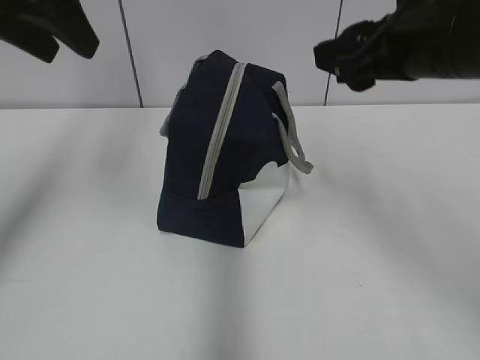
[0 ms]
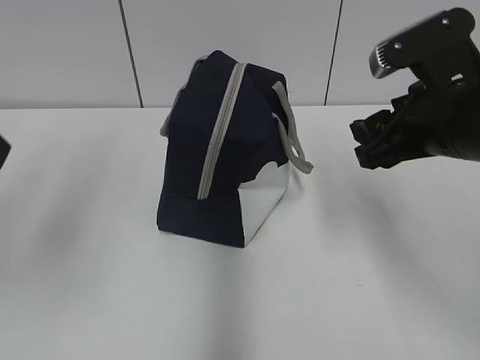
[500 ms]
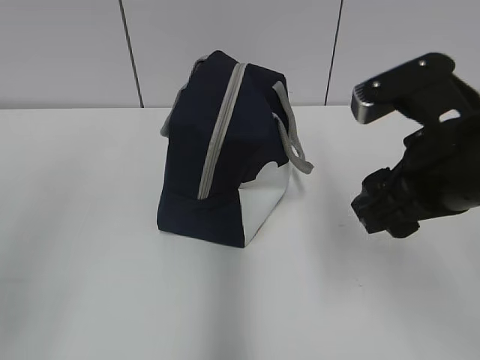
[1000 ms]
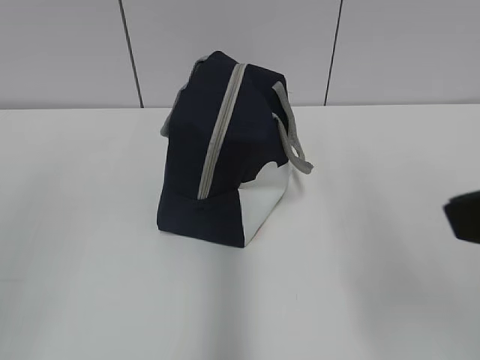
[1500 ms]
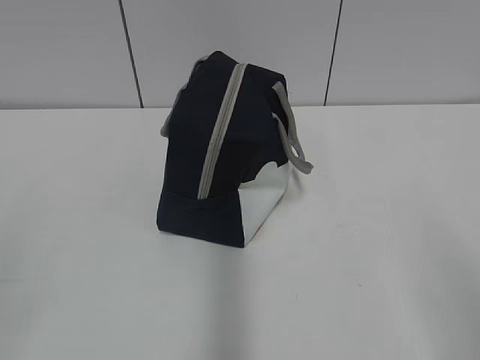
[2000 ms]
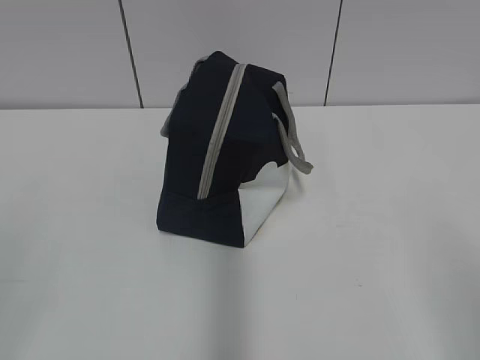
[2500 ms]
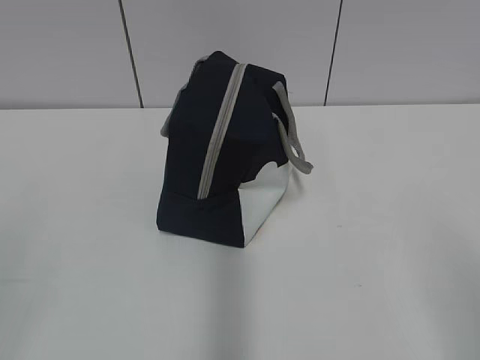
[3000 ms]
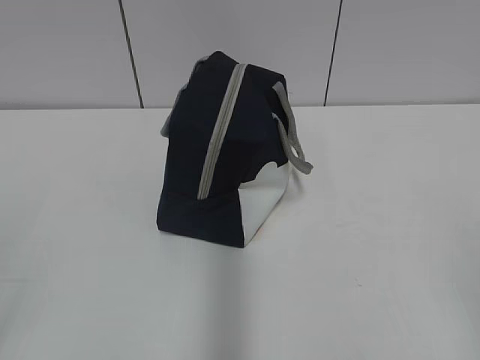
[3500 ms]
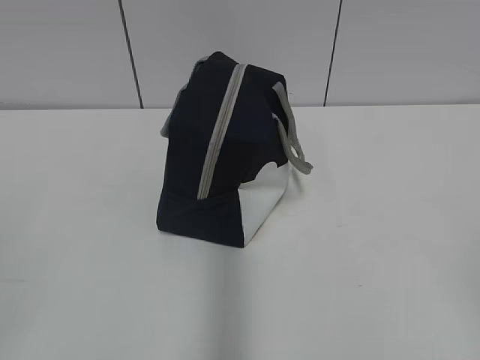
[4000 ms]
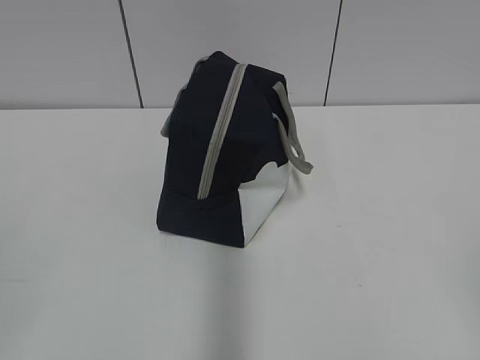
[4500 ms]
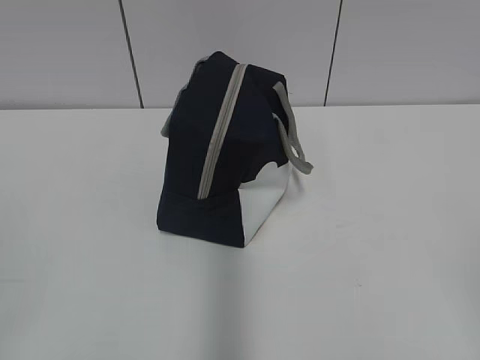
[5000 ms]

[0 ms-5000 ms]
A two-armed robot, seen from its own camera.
0 ms to 2500 ms: Both grippers travel together backward, approximately 30 cm.

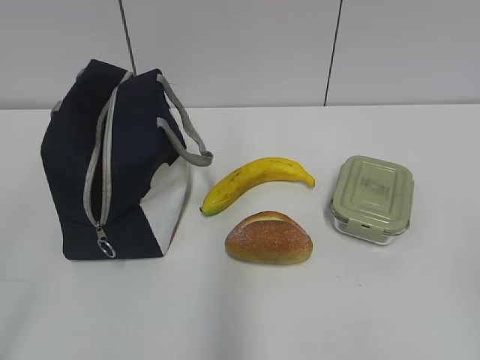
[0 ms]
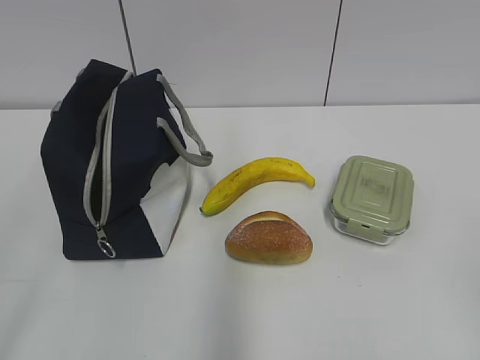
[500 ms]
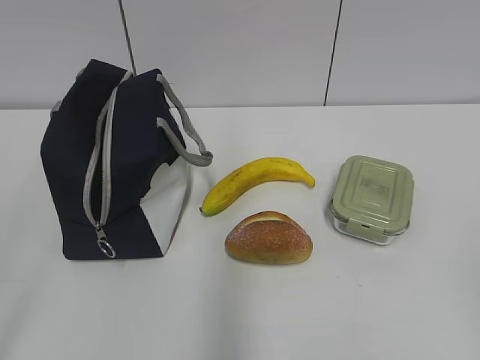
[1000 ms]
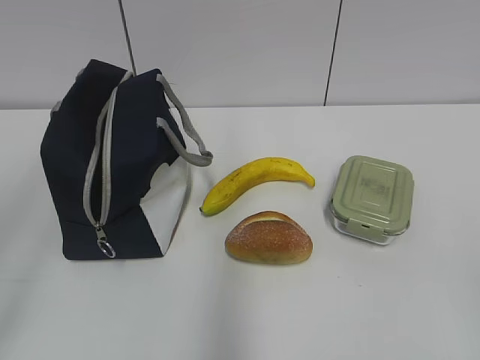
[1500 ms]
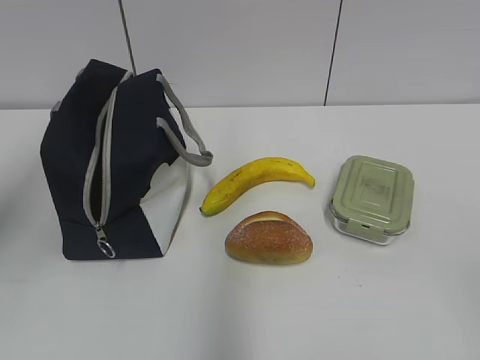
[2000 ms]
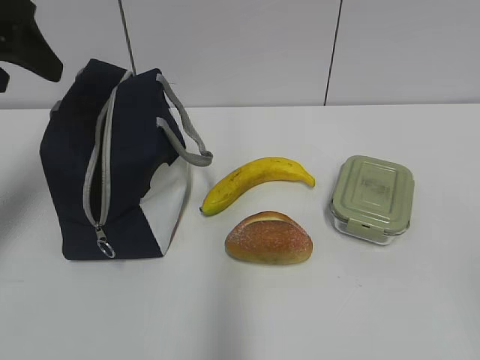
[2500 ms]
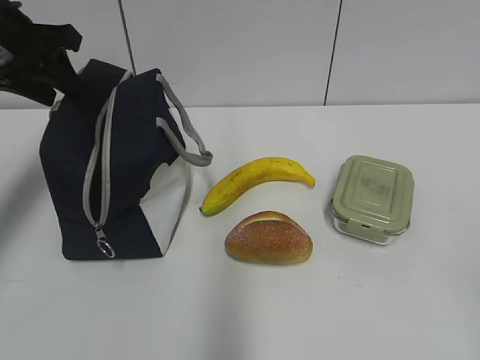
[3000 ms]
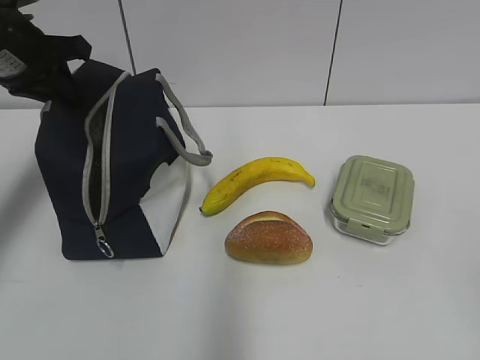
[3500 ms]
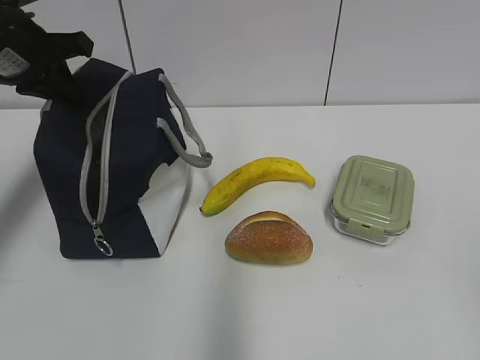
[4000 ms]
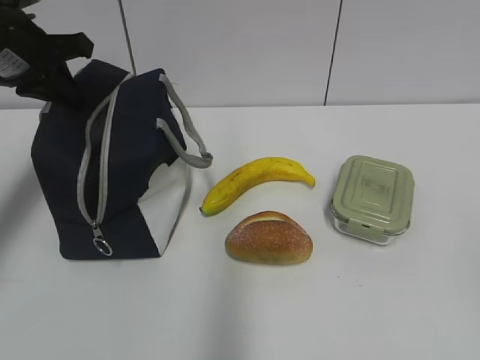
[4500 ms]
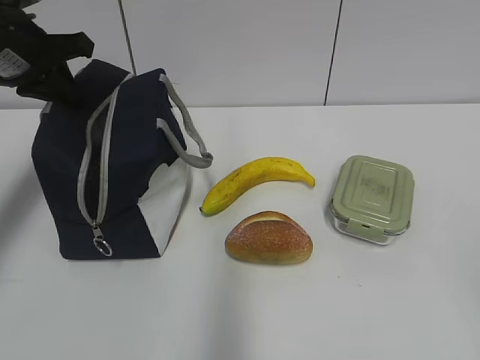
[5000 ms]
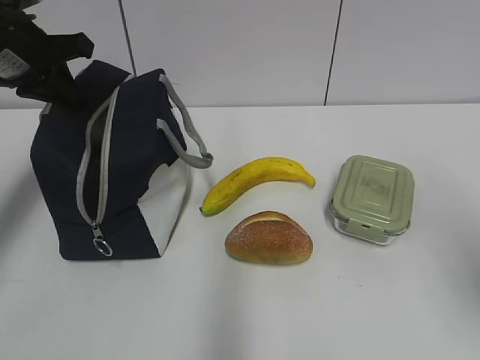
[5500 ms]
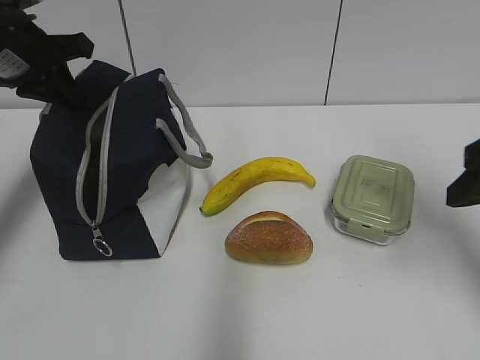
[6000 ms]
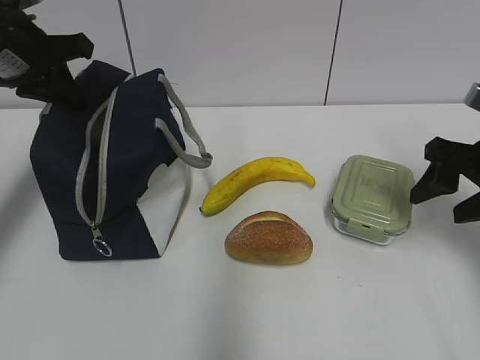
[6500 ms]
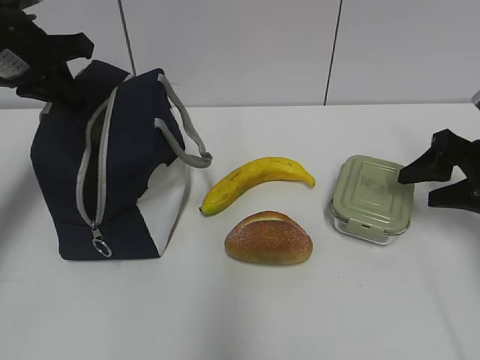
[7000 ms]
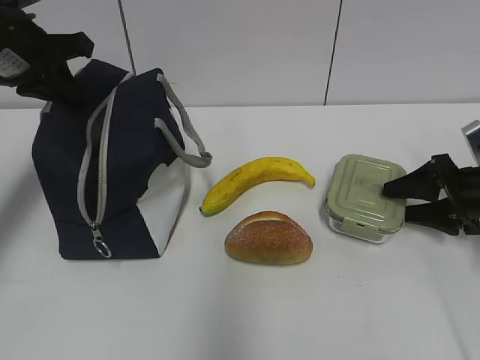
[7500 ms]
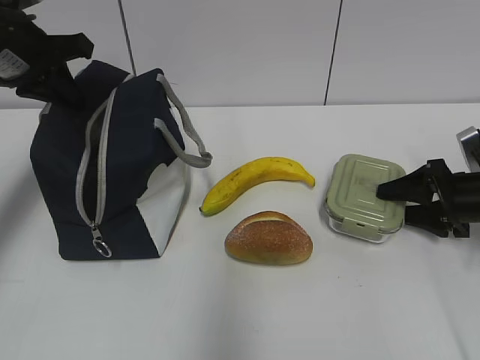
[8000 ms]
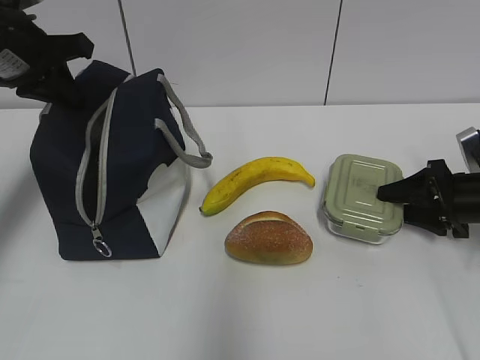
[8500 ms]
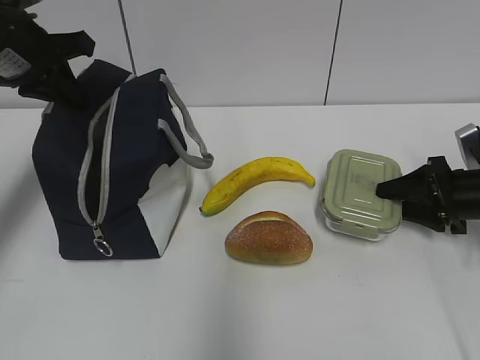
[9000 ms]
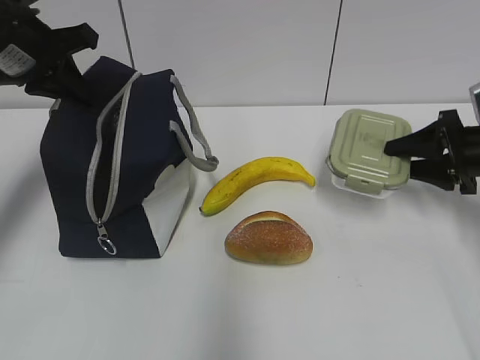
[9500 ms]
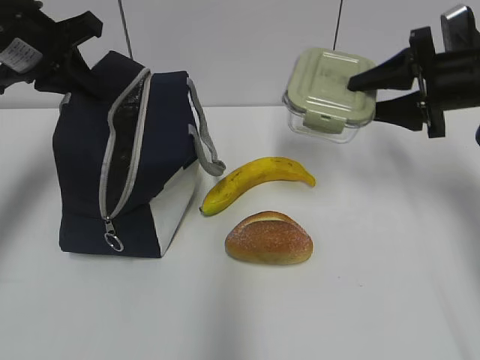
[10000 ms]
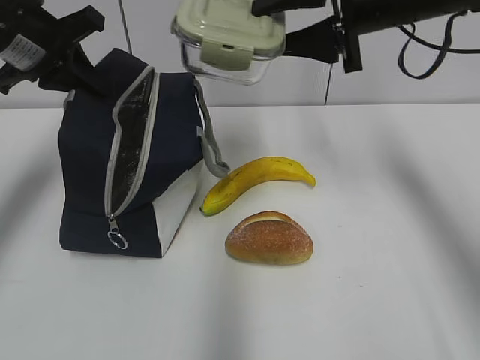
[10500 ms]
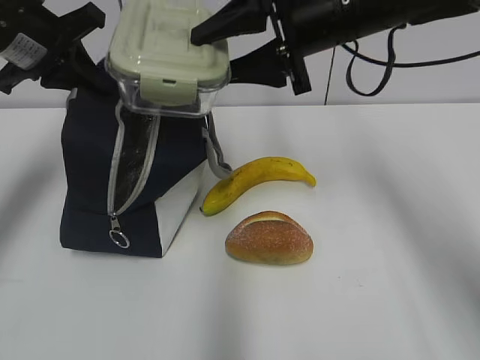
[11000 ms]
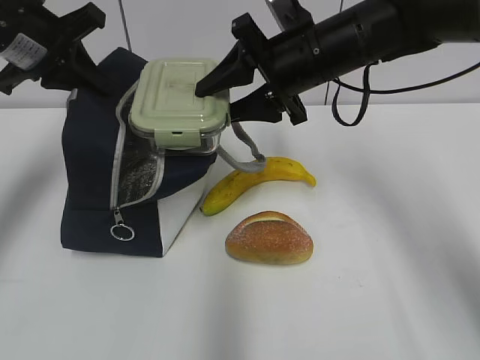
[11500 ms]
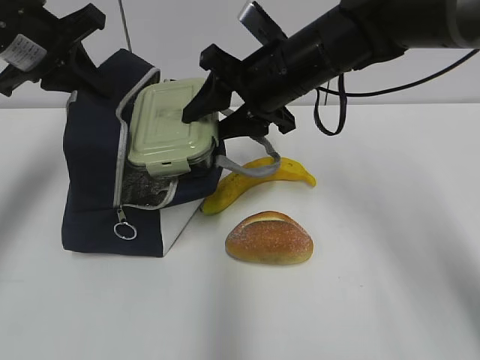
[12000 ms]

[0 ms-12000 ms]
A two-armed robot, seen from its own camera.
2000 ms to 4000 ms: The left gripper heads forward and downward, covering some 25 cm, and closes.
4000 ms to 6000 ms: The right gripper heads forward, covering some 25 cm.
6000 ms to 8000 ms: The right gripper is displaced downward and forward by roughly 20 cm.
8000 ms to 10000 ms: The right gripper travels upward by approximately 15 cm.
10000 ms to 12000 ms: The right gripper moves to the left, about 20 cm.

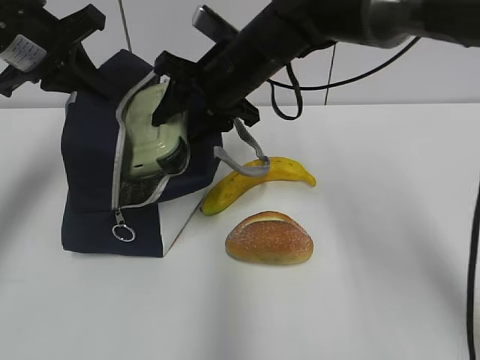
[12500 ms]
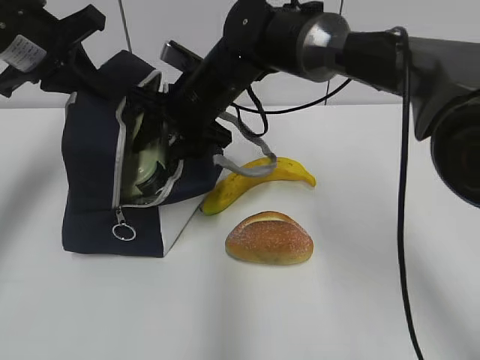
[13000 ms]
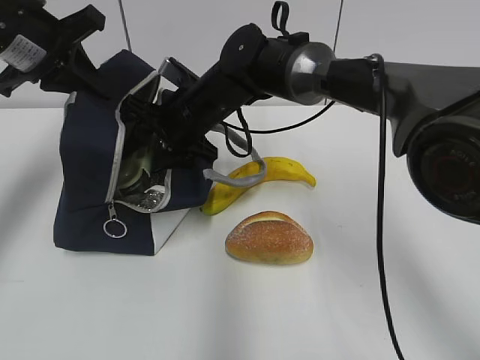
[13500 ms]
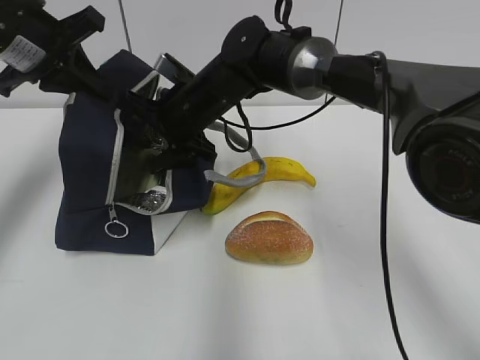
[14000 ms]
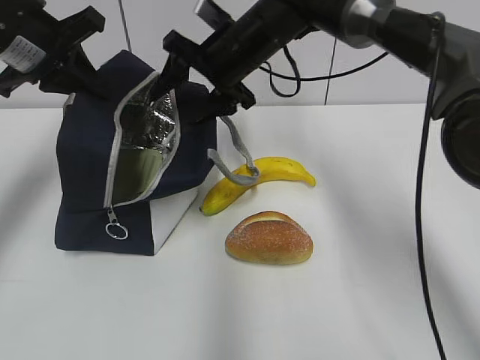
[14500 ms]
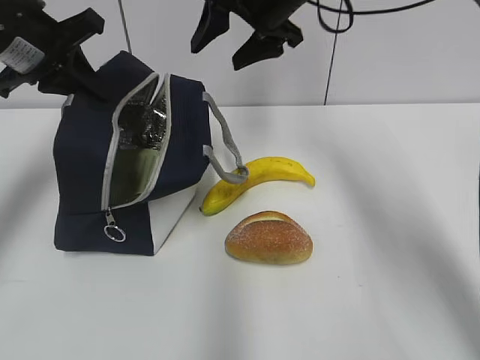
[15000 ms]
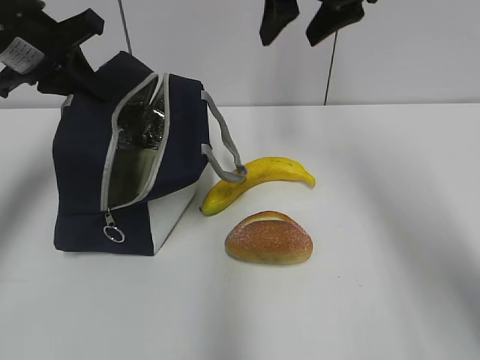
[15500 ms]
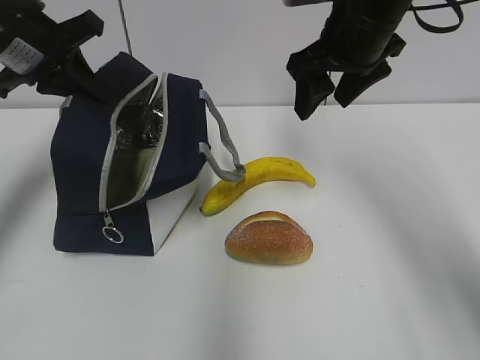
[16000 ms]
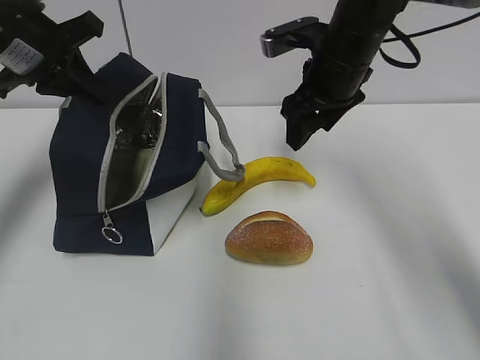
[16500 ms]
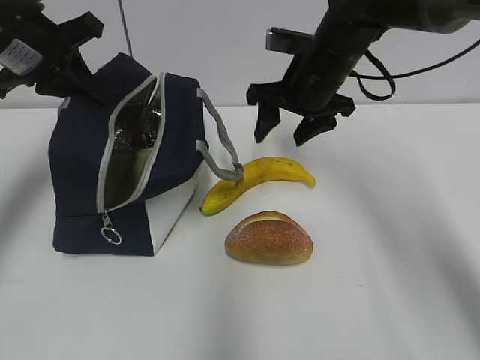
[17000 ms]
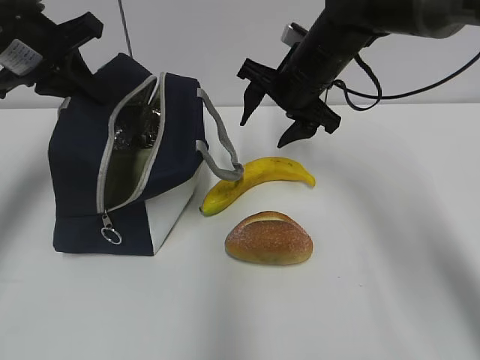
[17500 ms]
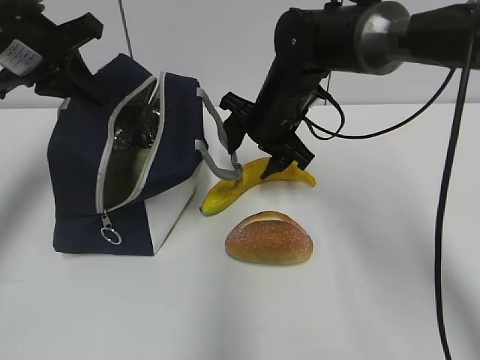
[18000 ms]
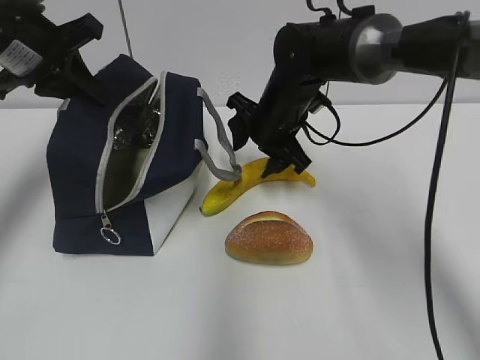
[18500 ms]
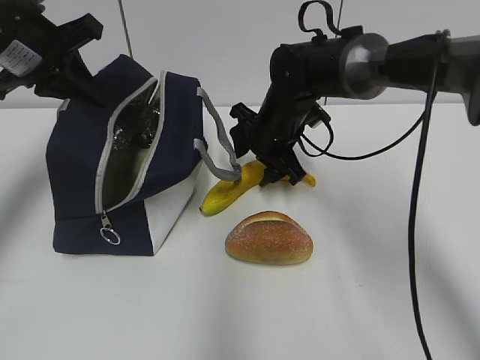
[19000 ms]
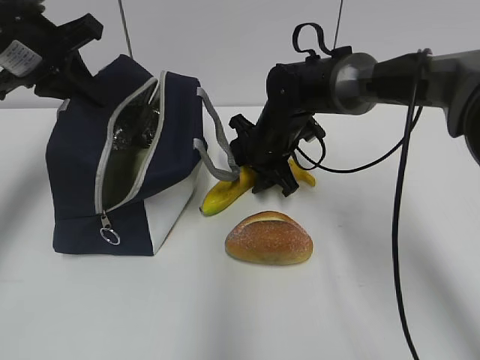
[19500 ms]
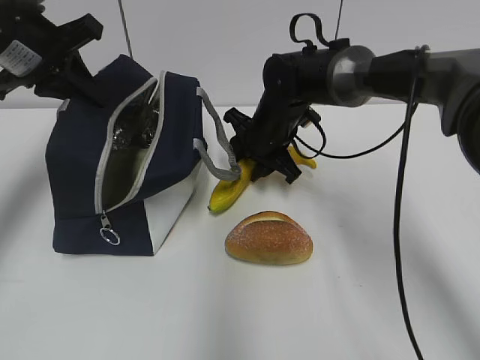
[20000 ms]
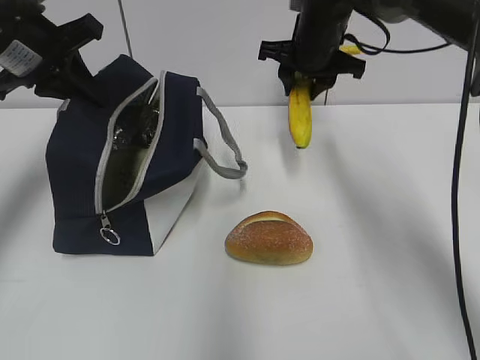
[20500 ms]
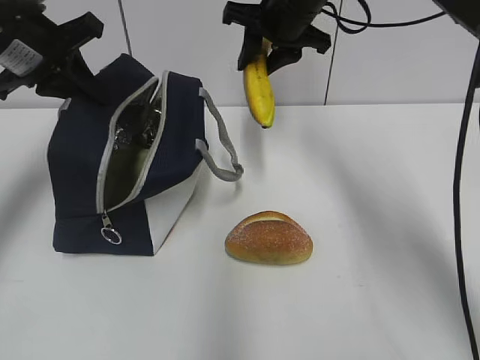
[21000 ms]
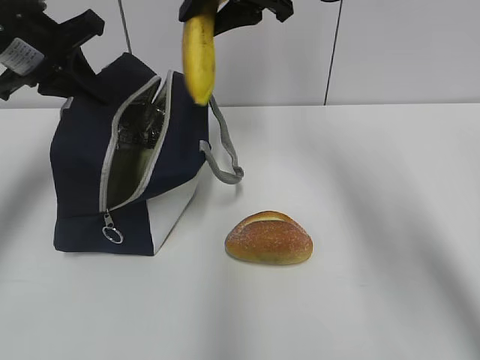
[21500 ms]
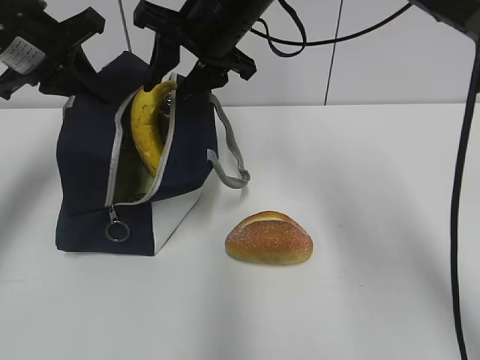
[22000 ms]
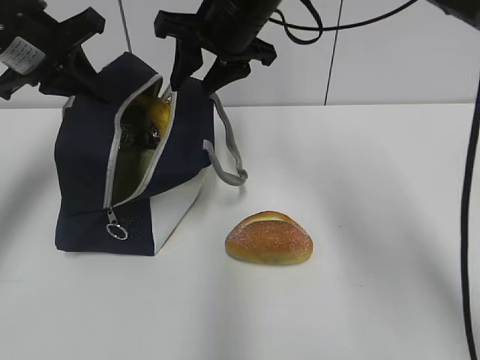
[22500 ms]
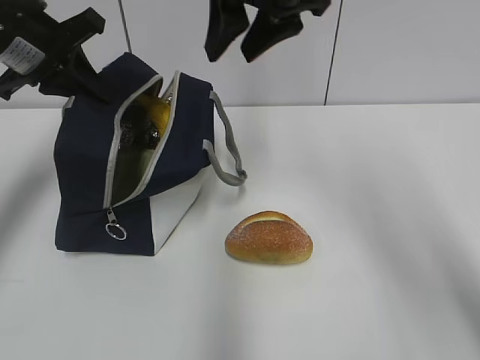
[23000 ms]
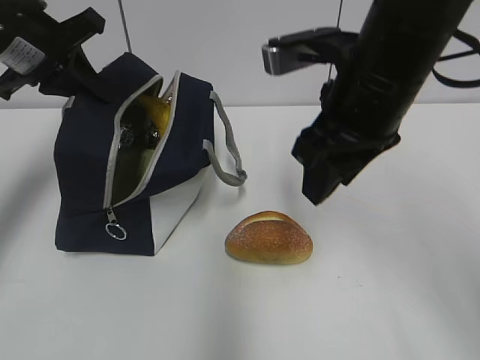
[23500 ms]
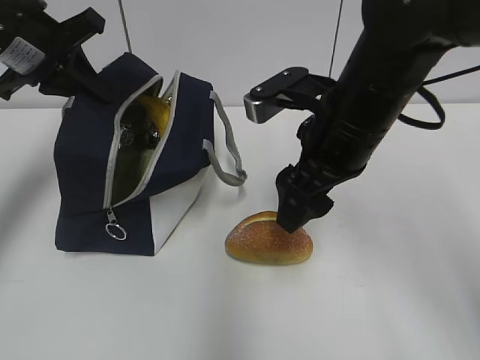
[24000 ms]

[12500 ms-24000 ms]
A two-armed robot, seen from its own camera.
14500 ms to 16500 ms: The right gripper travels to the right and backward by about 10 cm, and goes upward and returns, about 10 cm each way.
16500 ms to 18500 ms: The right gripper heads downward and to the left, covering about 10 cm.
18500 ms to 20000 ms: The right gripper closes its fingers.
20000 ms to 22000 ms: The right gripper is displaced upward by some 15 cm.
22000 ms to 24000 ms: The right gripper is displaced backward, to the right and downward by about 15 cm, and opens up.
